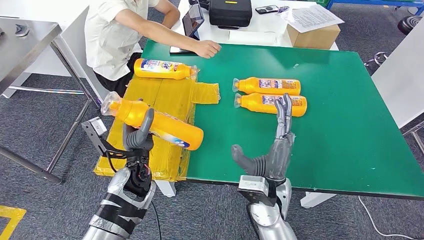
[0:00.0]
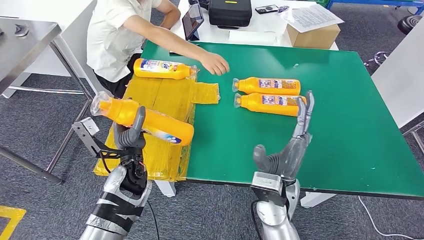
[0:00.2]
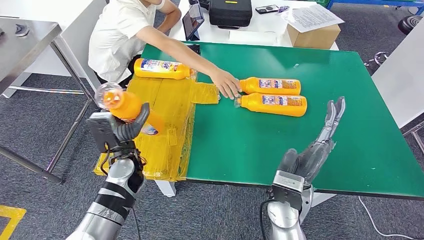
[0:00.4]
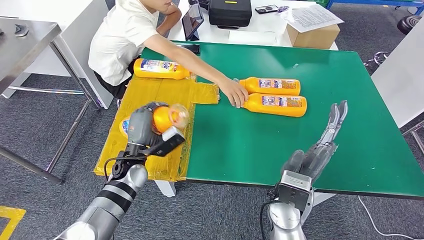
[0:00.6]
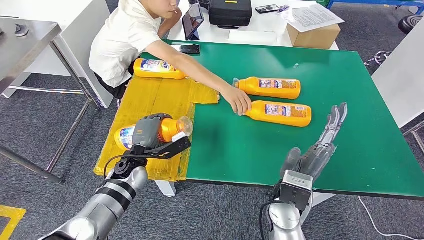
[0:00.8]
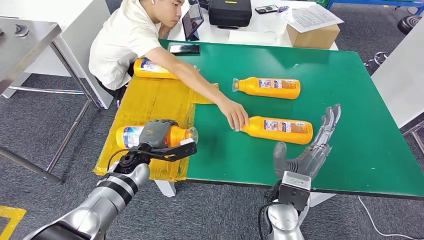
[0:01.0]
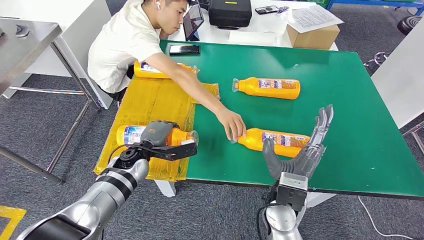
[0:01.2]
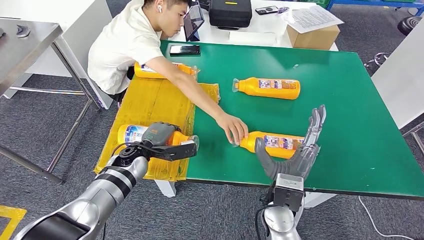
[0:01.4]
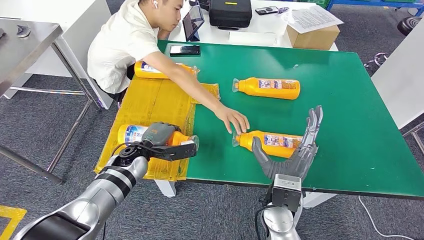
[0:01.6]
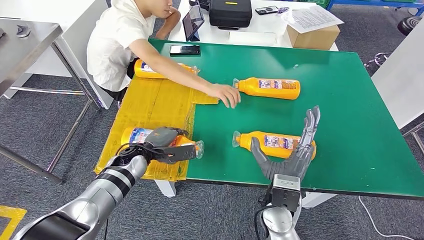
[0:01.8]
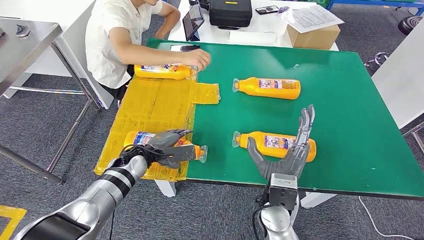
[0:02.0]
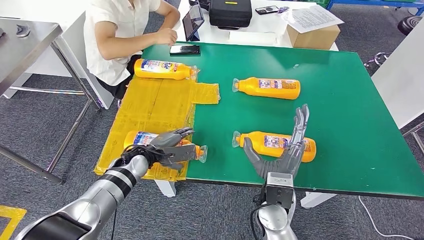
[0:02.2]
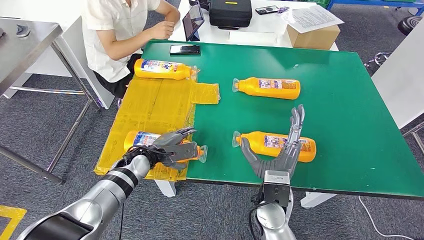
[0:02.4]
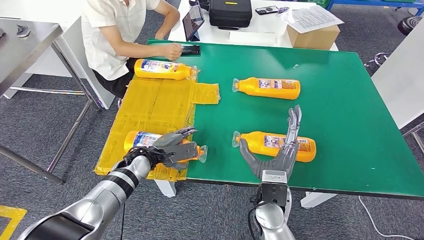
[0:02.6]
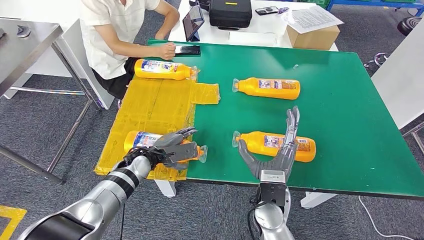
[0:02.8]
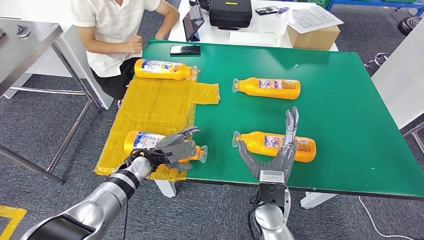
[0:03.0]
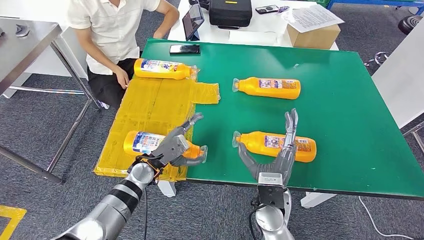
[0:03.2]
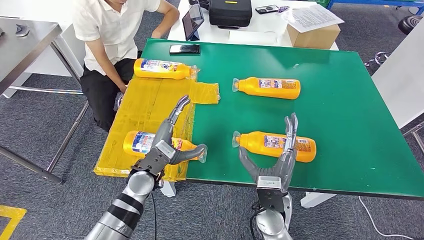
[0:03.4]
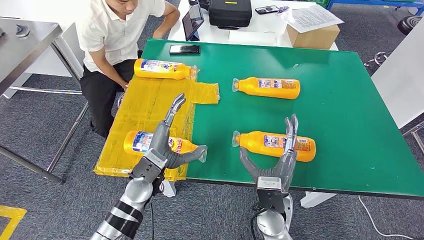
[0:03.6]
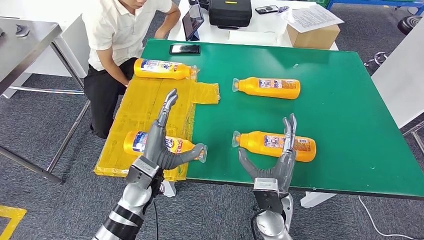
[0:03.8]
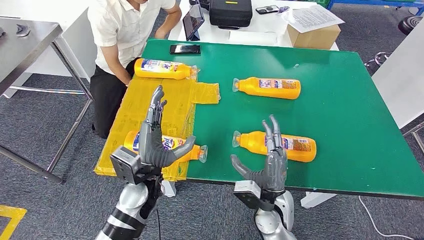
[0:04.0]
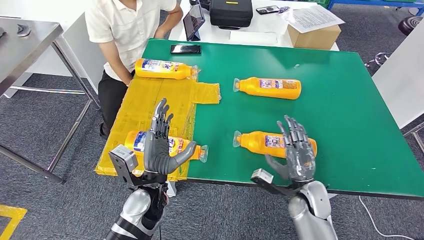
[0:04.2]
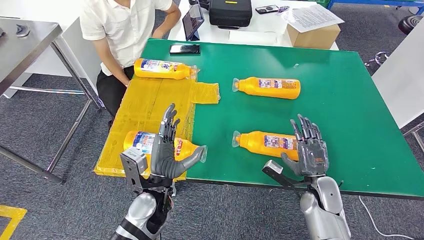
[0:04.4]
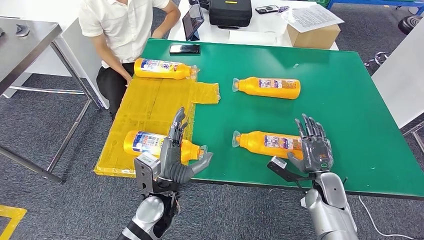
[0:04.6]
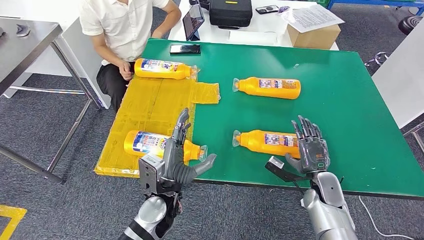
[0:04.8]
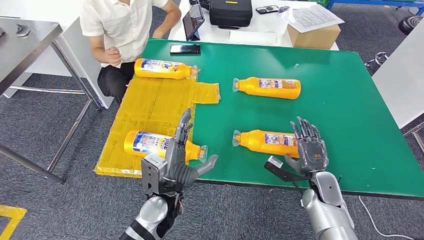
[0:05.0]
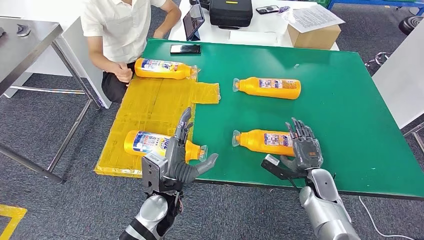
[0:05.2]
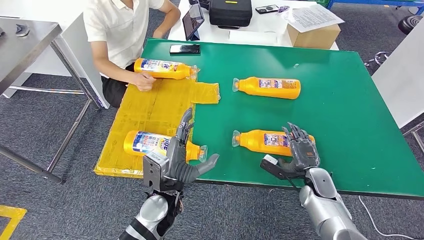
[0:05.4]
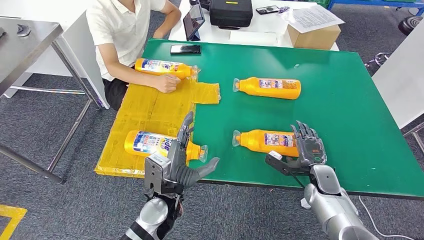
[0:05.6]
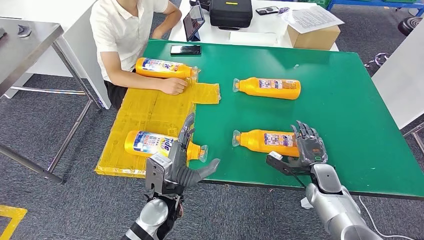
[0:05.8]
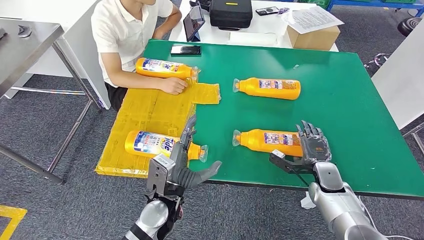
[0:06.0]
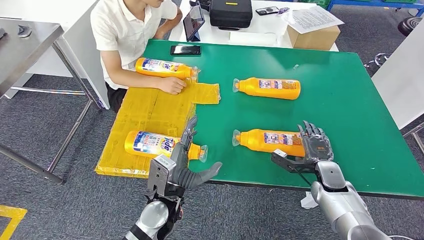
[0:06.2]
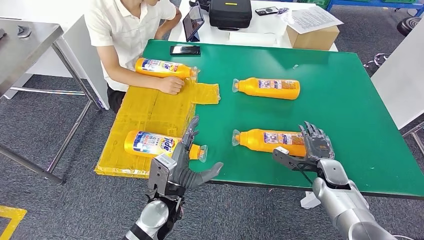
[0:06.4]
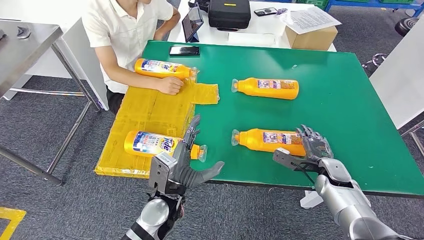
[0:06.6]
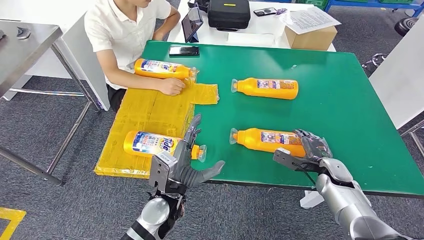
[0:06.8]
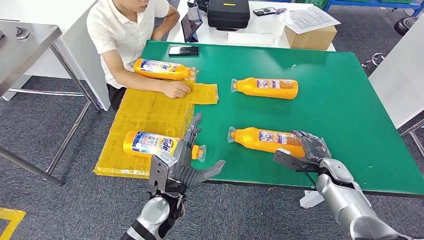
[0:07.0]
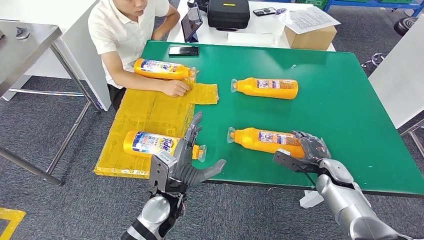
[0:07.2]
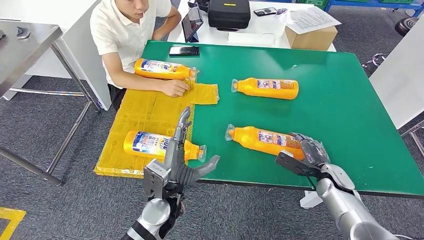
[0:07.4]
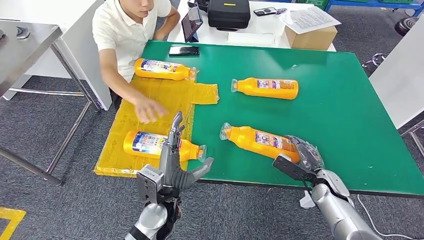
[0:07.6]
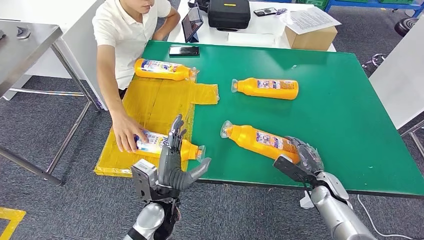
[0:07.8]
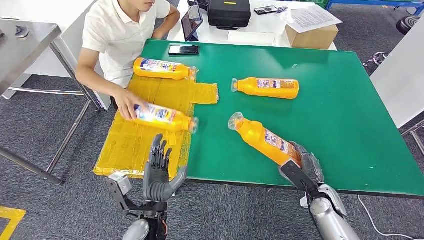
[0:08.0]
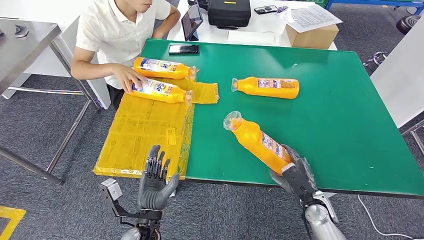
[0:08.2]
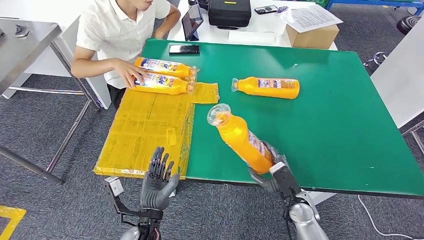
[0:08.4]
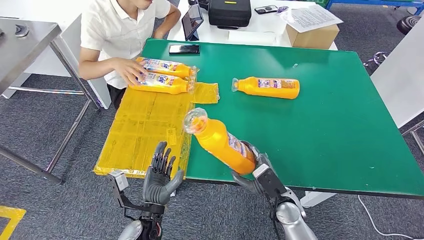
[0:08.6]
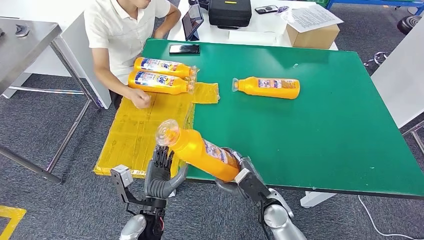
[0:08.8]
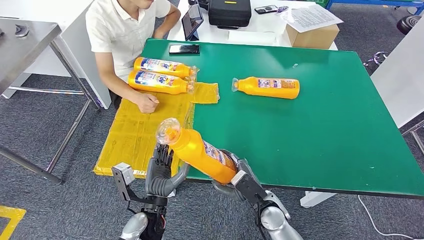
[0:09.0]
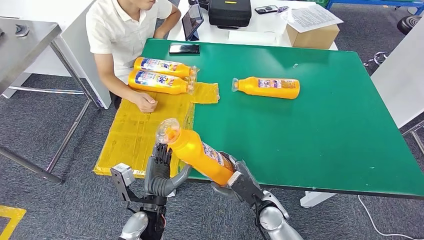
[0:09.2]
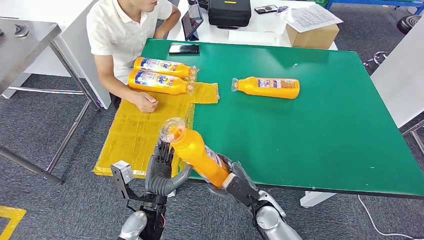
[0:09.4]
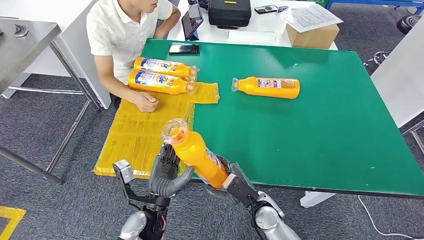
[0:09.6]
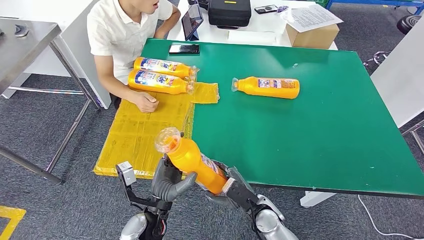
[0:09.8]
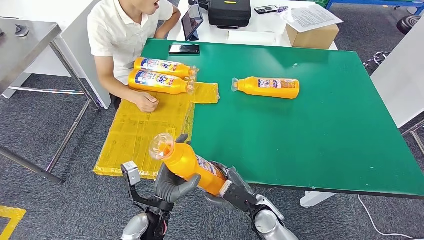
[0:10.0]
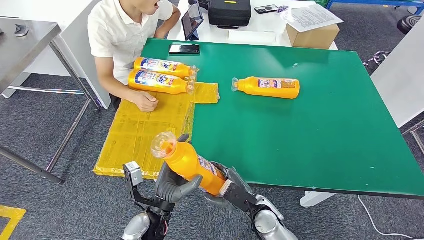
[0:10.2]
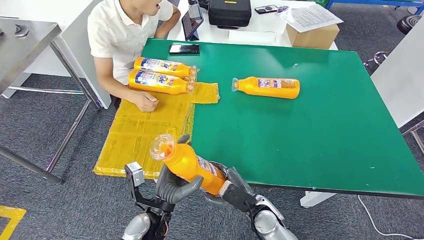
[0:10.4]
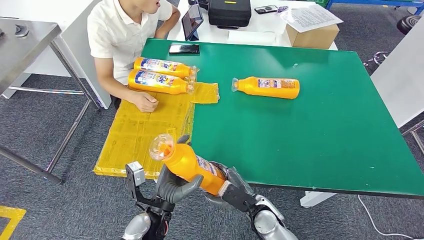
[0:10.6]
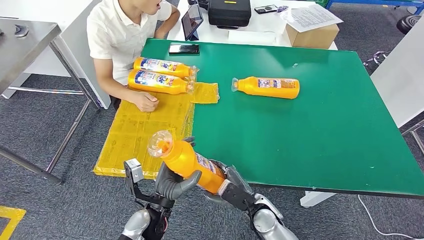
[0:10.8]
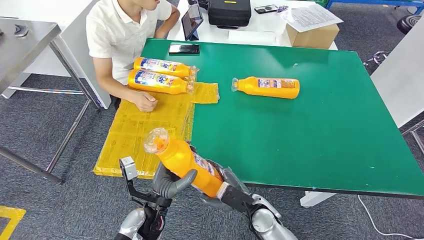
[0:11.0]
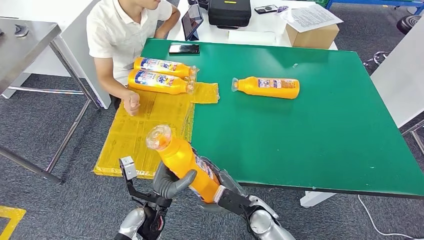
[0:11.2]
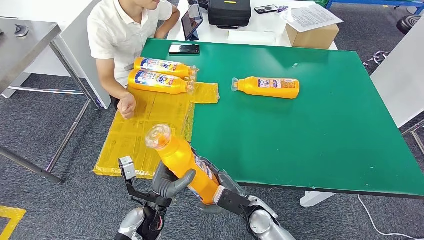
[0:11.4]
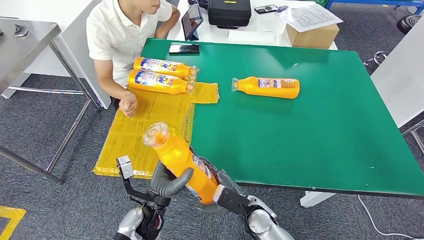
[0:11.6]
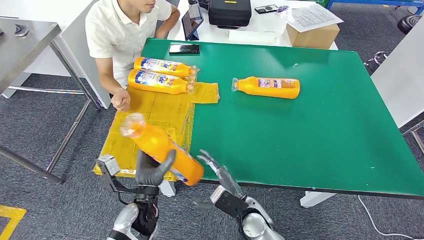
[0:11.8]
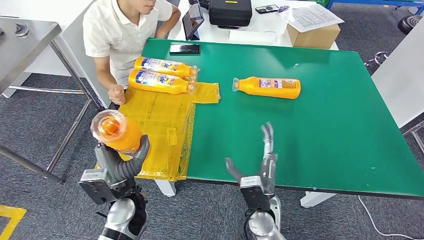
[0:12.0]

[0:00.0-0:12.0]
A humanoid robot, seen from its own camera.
Step, 0:00.0 to 0:00.8: Flip the fast-moving consumer goods bottle to the front side.
Step, 0:01.2 to 0:10.2: Pick up the fast-moving consumer goods bottle from the table.
0:04.4 to 0:06.0: The right hand shifts by about 5 cm.
0:09.0 to 0:10.4: There are only small adjustments of the hands.
0:10.4 to 0:12.0: The left hand travels to the left by some 5 cm, while the right hand ends up roughly 5 cm from where it was.

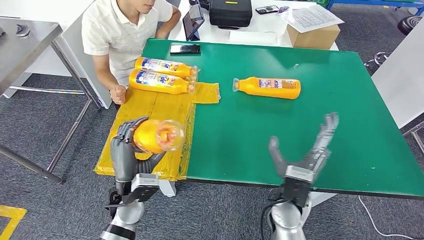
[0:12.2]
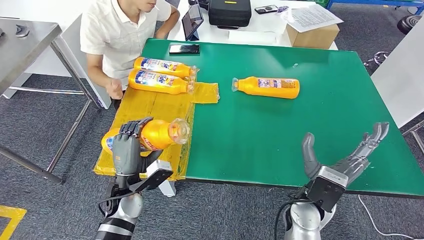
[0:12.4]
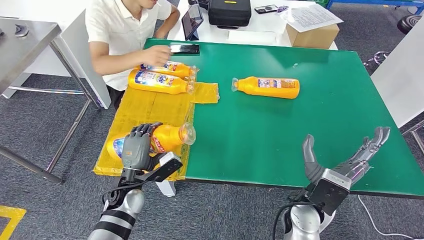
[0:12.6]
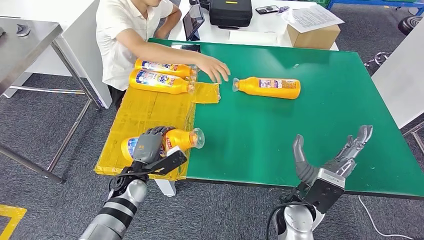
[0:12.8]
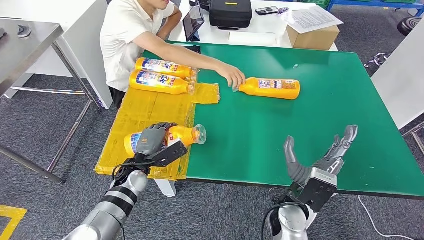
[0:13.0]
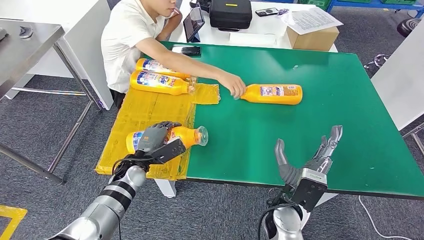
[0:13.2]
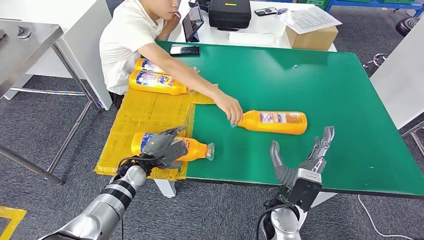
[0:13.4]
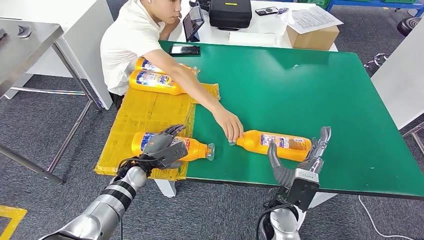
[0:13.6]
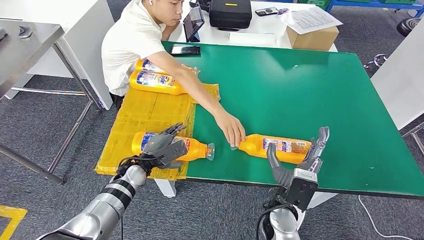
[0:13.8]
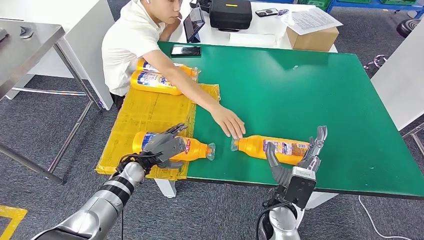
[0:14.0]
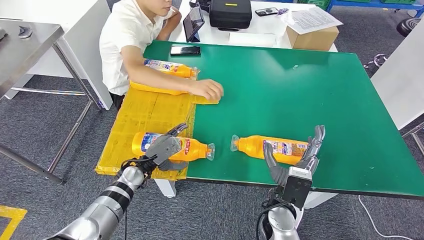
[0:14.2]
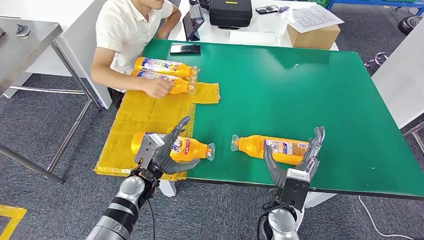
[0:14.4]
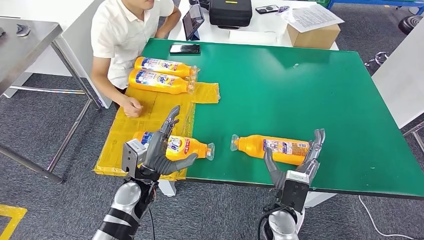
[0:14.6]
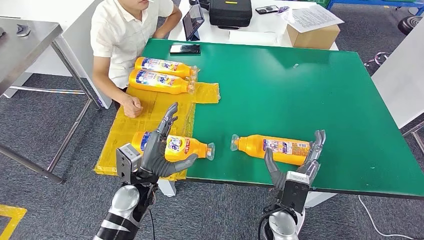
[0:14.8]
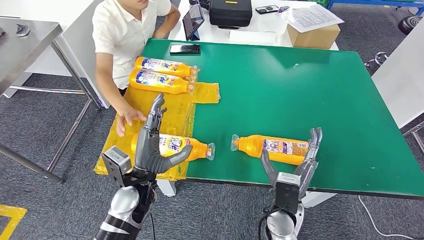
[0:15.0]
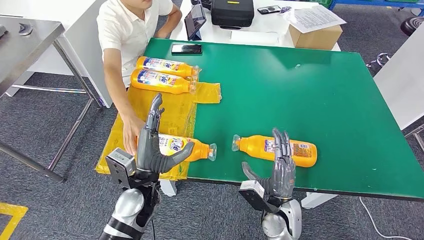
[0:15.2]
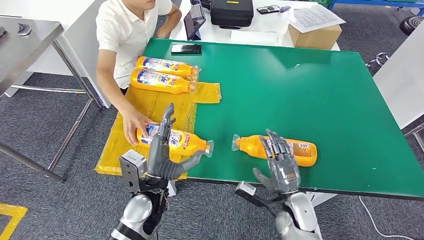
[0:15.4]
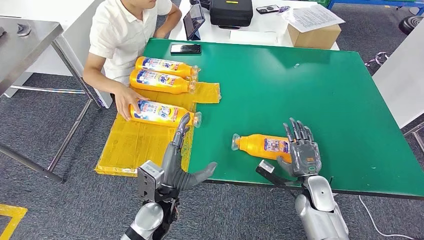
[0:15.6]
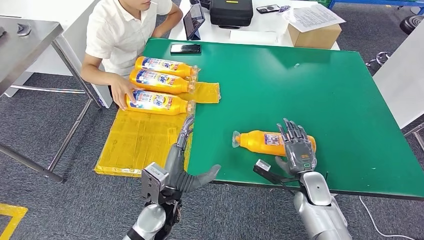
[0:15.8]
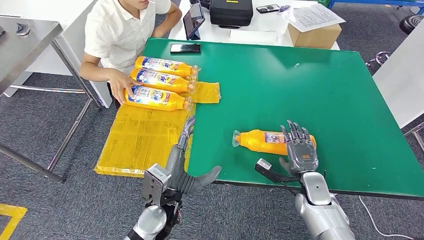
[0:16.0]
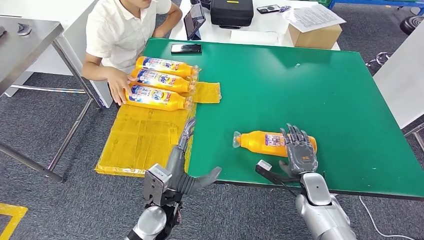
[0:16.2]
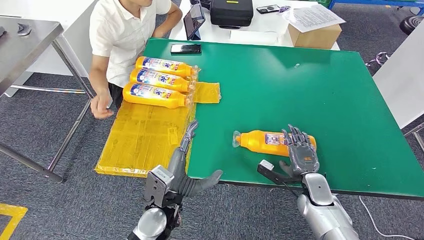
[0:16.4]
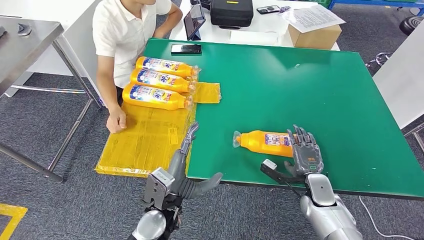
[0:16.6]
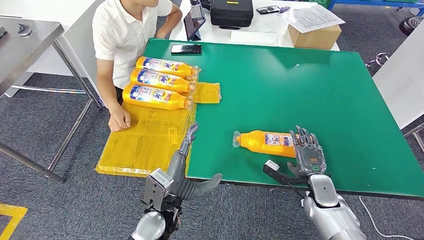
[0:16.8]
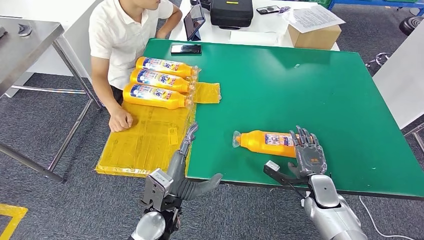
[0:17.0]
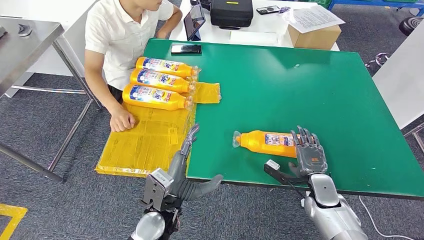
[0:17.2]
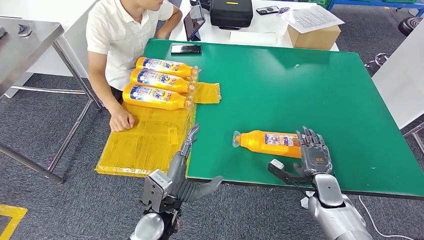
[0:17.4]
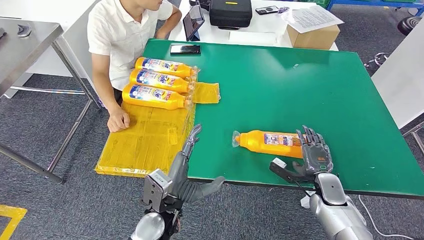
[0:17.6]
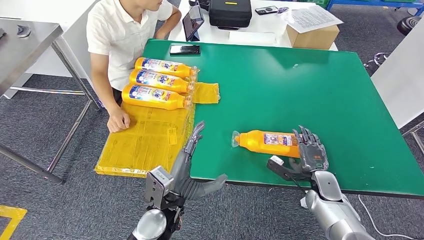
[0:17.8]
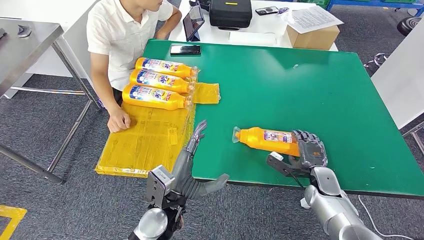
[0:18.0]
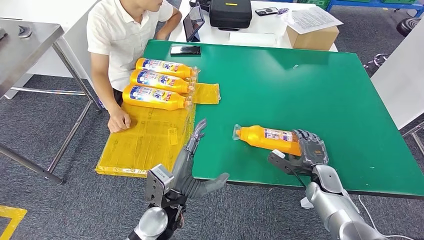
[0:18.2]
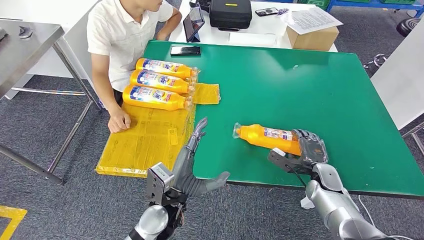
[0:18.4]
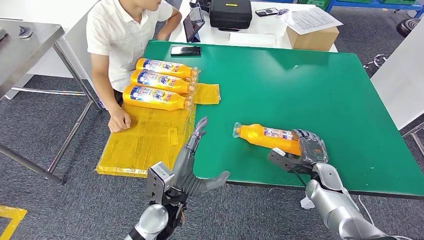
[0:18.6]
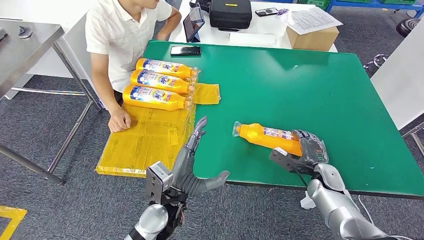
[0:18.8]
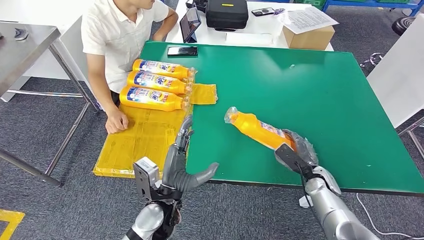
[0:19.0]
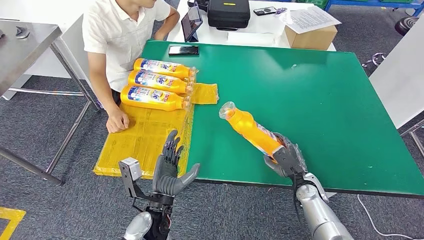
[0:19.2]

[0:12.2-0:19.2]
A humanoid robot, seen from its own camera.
Step, 0:12.4 to 0:13.4: Flip the fast-moving consumer goods bottle to the front side.
0:16.4 to 0:17.8: The hands move only a little.
